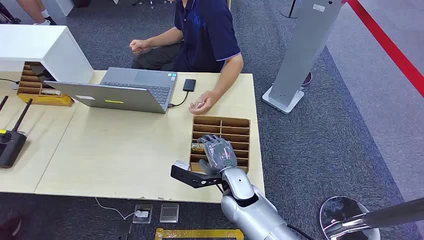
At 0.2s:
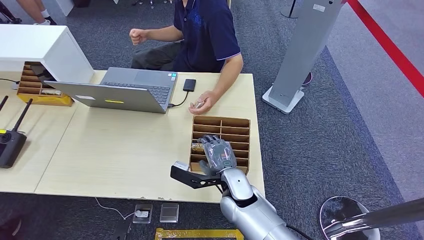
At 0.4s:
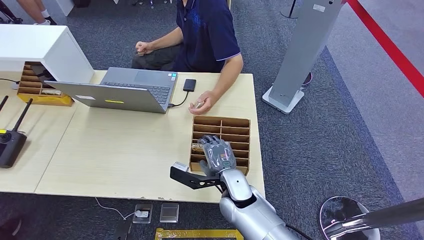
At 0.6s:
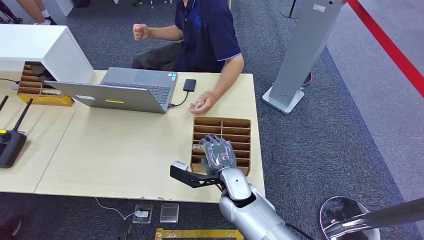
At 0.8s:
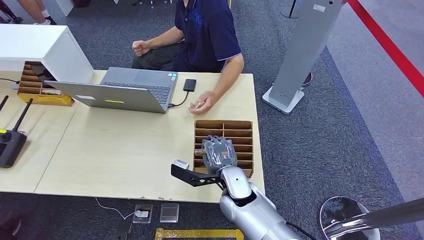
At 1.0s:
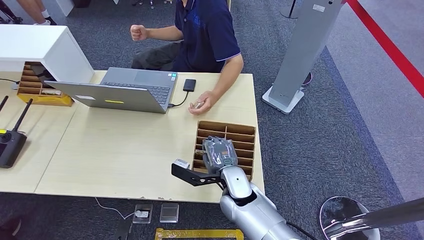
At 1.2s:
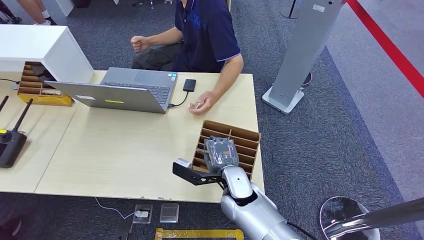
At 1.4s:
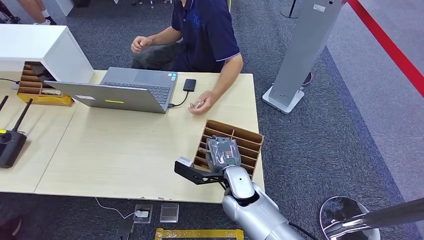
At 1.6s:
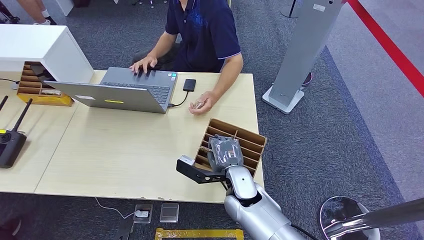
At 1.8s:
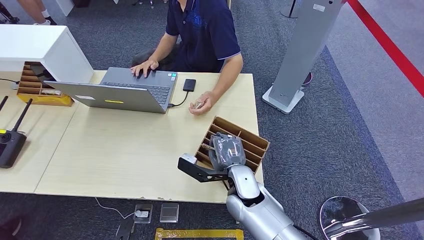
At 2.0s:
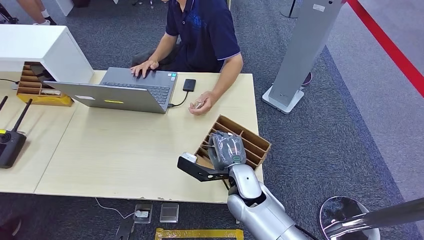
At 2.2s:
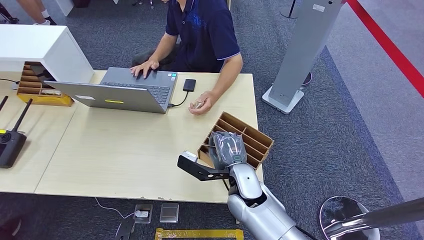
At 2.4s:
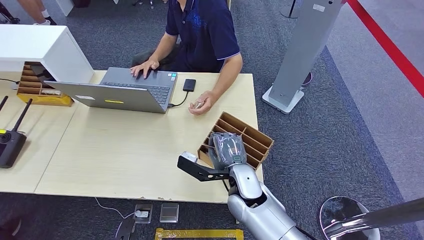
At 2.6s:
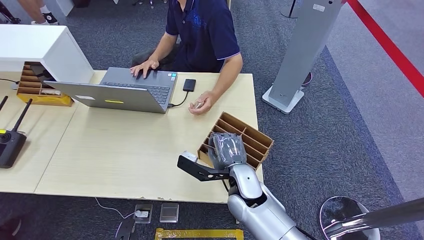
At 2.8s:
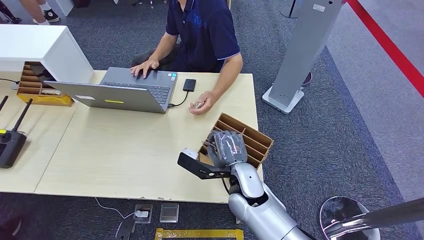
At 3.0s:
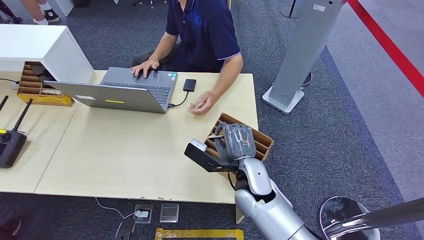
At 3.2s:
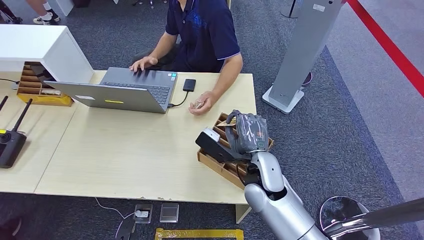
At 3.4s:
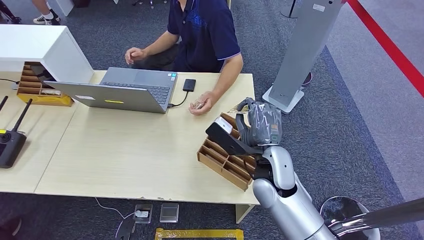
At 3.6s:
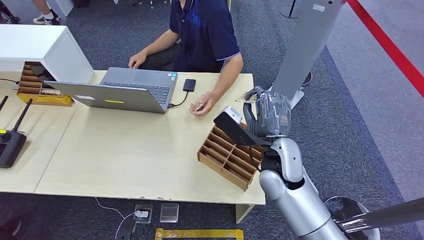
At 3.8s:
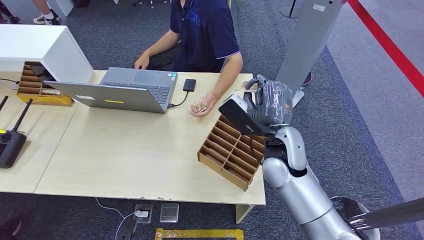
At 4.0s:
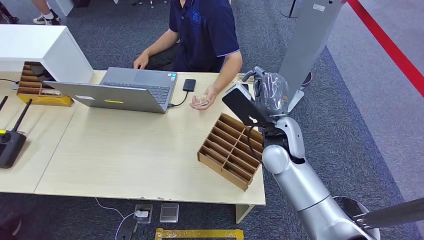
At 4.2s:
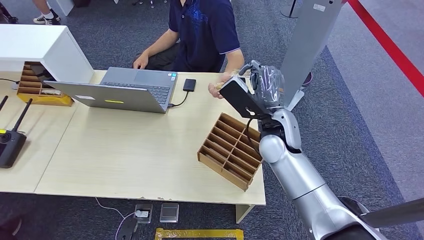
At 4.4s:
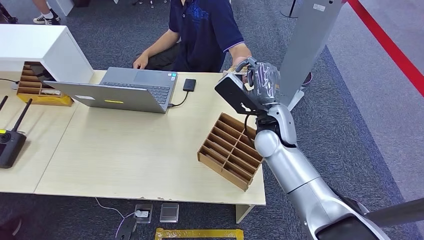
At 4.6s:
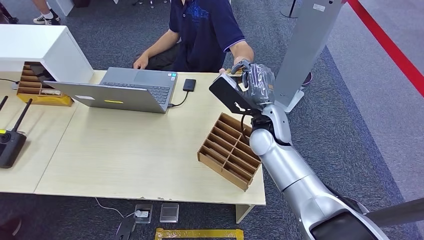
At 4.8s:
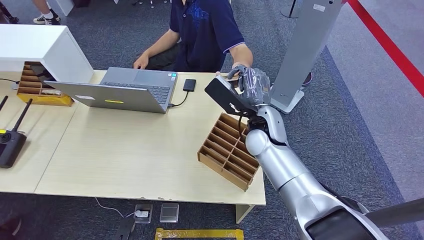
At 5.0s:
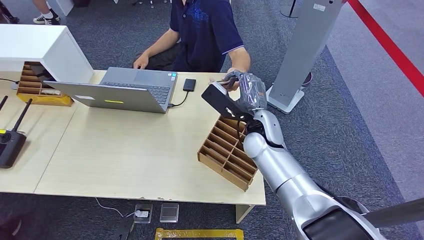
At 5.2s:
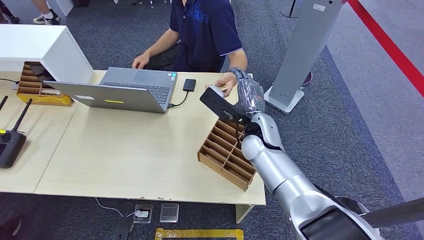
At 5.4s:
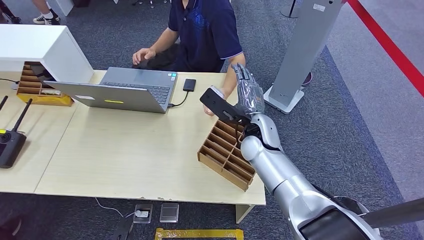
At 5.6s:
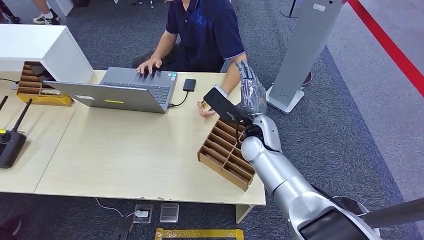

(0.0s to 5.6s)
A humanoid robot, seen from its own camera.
Step, 0.0s - 3.0s: Pick up the room card from the card holder.
Step, 4.2s - 5.6s: Hand the room card to the target.
1.4s - 2.8s: The hands stay close to where they were, moving slightly.
2.8s - 4.2s: The right hand shifts approximately 15 cm upward, forward and to the right.
4.2s - 5.6s: The right hand ends up about 5 cm from where it was.
